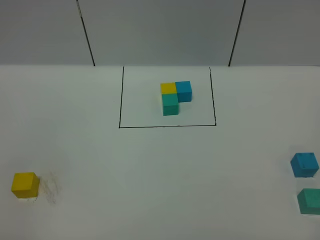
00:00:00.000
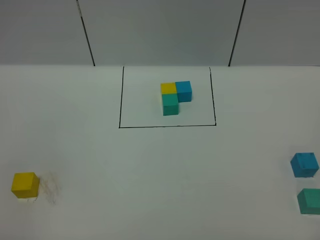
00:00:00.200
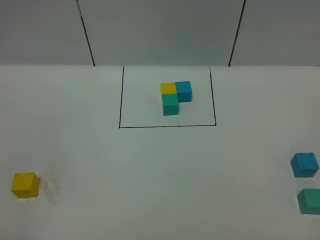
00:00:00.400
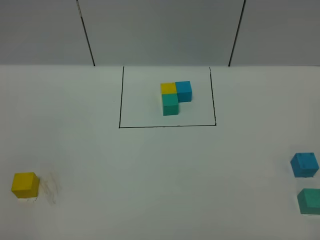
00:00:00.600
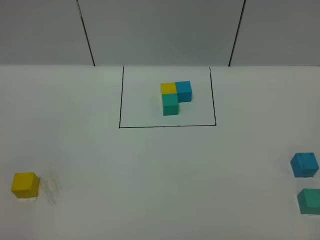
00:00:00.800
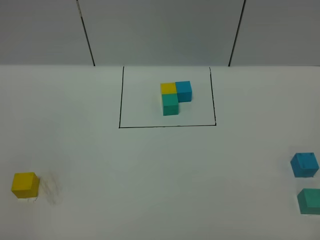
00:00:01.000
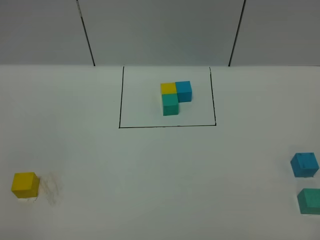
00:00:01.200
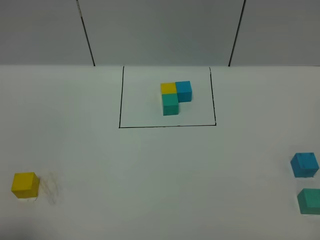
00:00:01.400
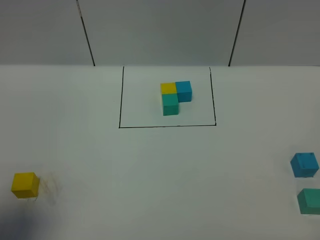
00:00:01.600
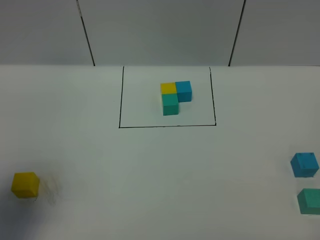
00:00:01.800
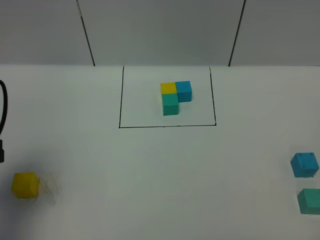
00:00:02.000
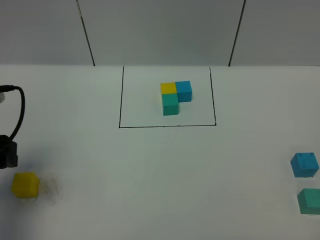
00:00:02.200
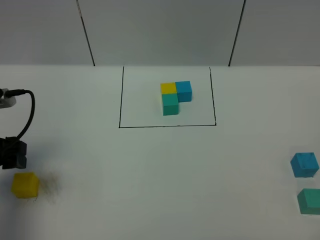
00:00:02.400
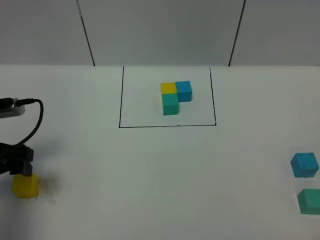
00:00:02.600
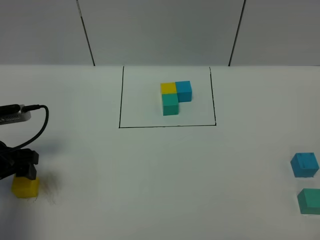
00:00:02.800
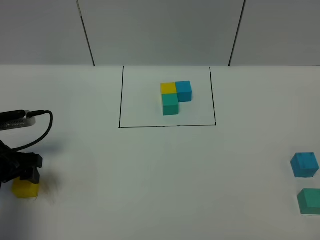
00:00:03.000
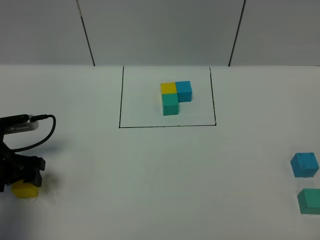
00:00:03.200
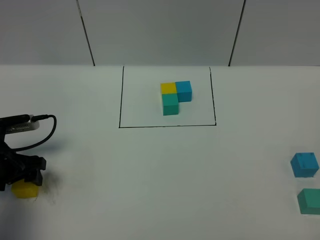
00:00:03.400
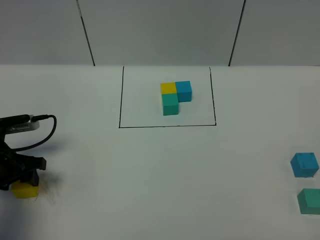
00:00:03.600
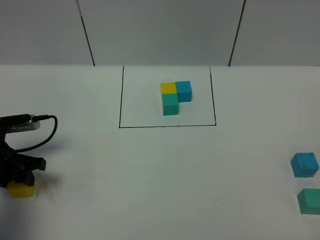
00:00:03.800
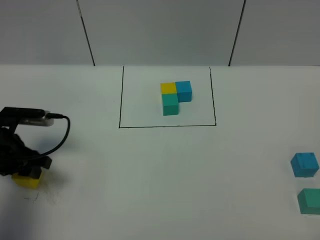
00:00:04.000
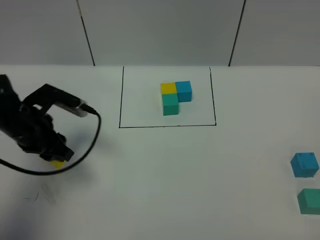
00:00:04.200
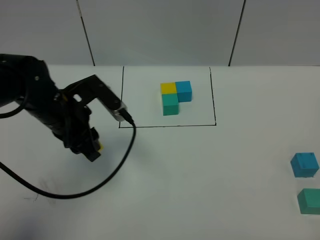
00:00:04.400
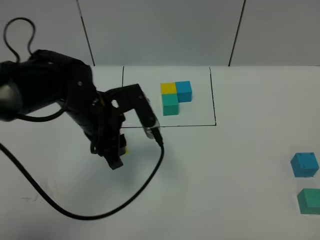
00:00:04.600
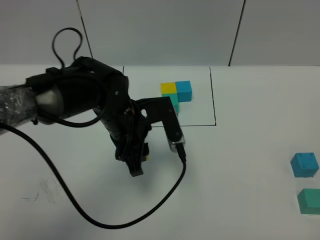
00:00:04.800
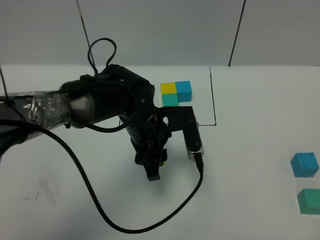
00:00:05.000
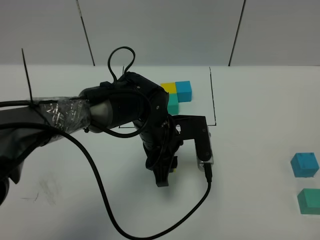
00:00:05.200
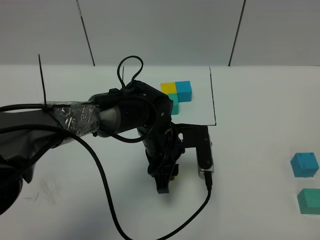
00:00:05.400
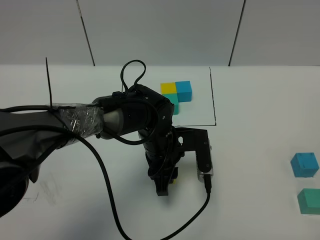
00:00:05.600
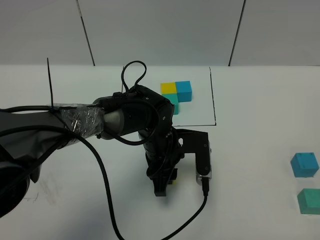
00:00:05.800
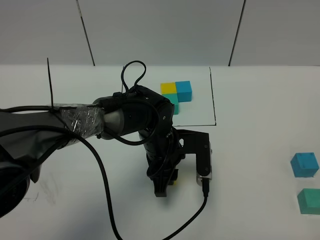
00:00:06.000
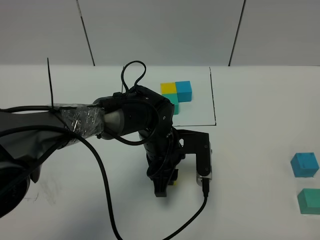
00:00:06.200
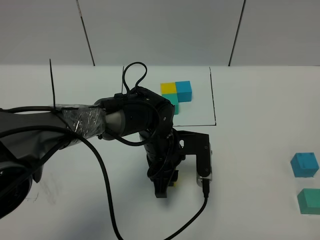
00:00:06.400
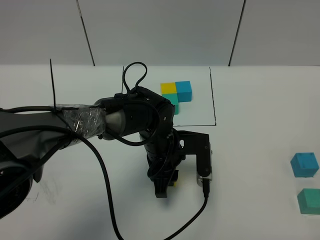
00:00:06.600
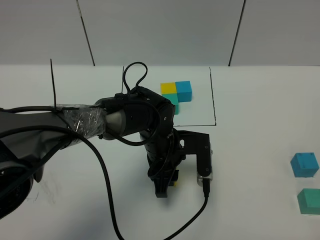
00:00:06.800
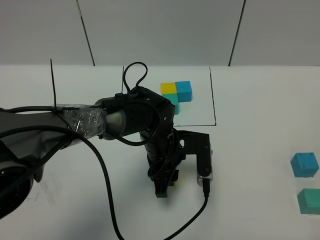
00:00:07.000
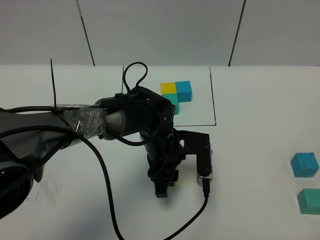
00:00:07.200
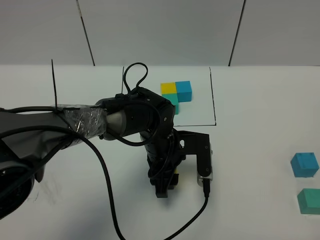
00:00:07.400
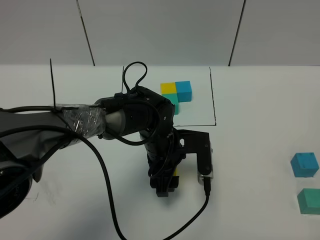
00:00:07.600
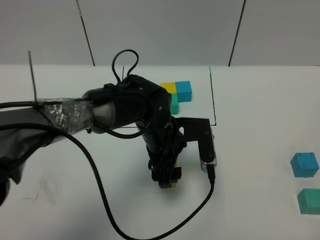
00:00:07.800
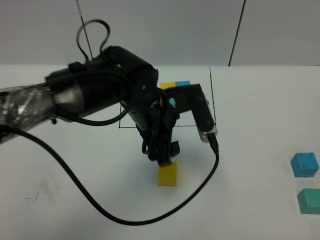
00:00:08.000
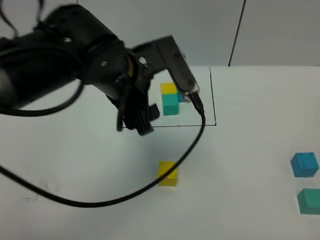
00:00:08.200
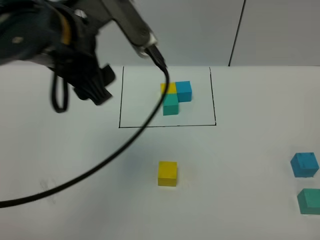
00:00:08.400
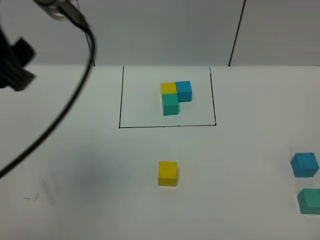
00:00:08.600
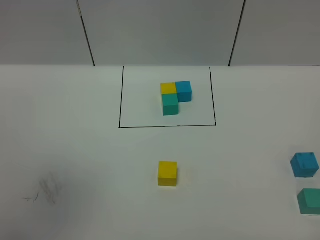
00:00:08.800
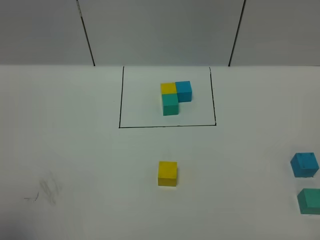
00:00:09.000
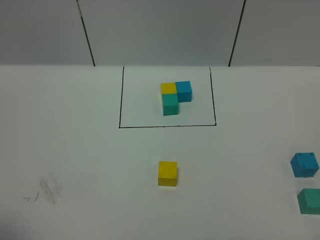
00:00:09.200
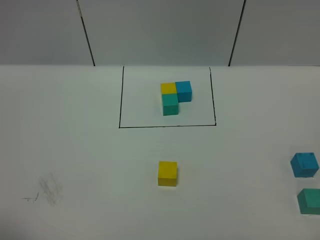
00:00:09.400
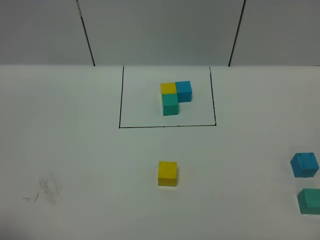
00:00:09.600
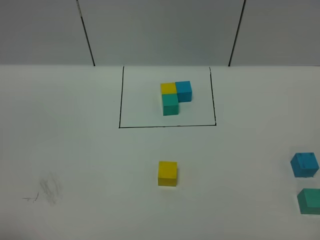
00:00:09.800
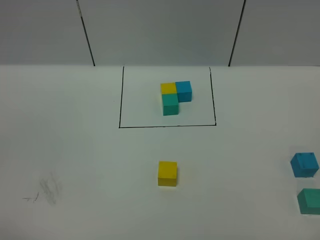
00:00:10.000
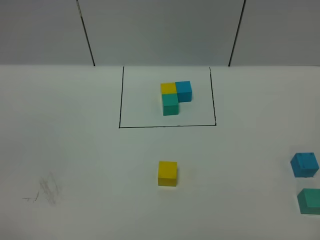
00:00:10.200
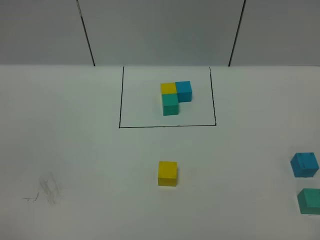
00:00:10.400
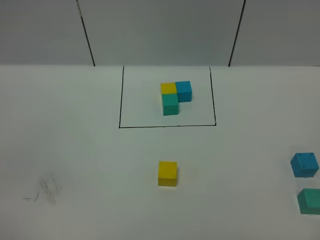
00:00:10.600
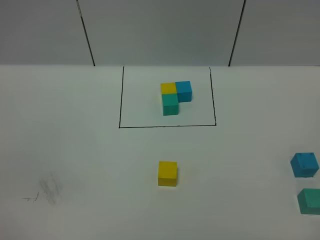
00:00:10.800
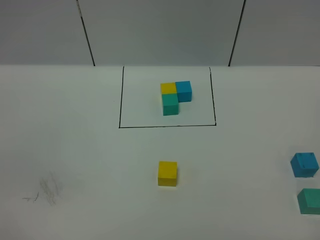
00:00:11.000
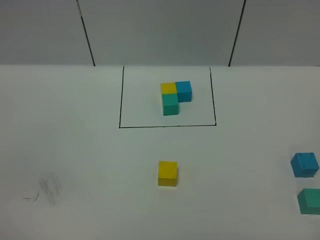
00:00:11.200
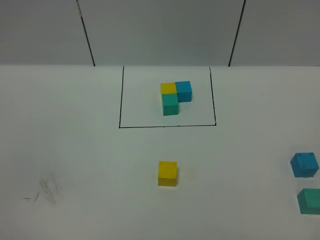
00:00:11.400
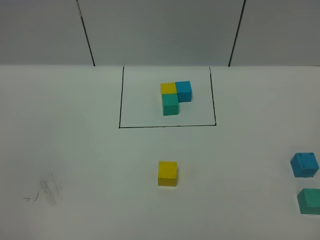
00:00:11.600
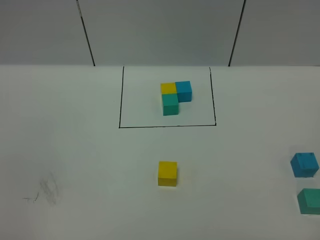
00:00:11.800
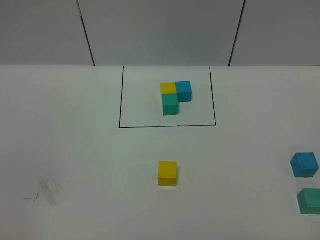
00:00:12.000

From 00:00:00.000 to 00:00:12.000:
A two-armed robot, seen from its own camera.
Task of the whole recording: According to the building block template in front, assemble the scattered blocks together.
Step, from 00:00:01.800 to 00:00:07.600: Put the yellow cube in the center of the table.
From 00:00:00.000 to 00:00:01.600: The left gripper goes about 15 cm forward and upward.
From 00:00:01.600 to 00:00:03.000: The left gripper shifts approximately 25 cm downward and forward.
From 00:00:03.000 to 00:00:04.400: The left gripper shifts approximately 15 cm to the right and upward, and closes its fingers.
From 00:00:04.400 to 00:00:06.000: The left gripper shifts roughly 20 cm to the right and downward.
From 00:00:06.000 to 00:00:07.600: The left gripper opens up.
From 00:00:07.600 to 00:00:09.000: The left gripper moves upward, to the left and backward, roughly 60 cm.
From 00:00:09.000 to 00:00:10.400: The left gripper is displaced downward by approximately 20 cm.

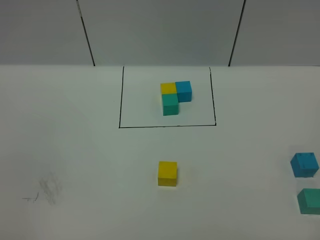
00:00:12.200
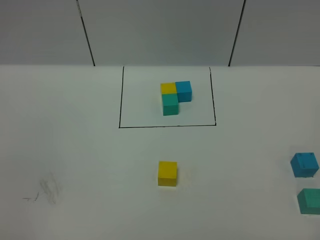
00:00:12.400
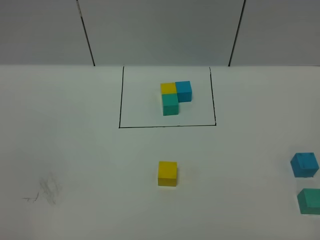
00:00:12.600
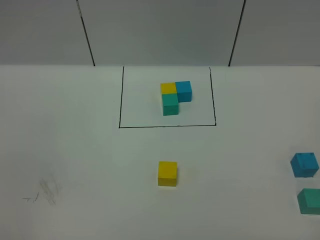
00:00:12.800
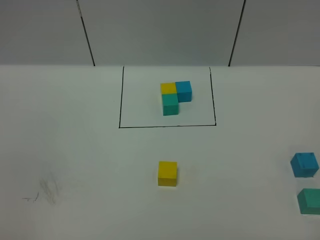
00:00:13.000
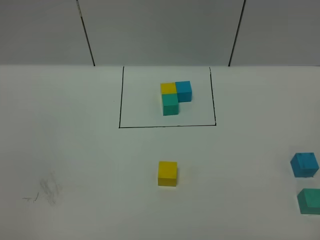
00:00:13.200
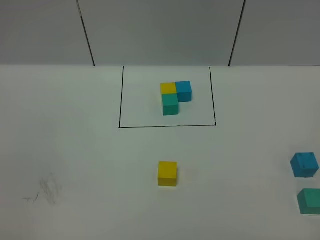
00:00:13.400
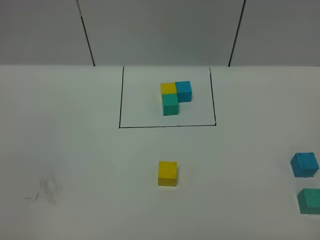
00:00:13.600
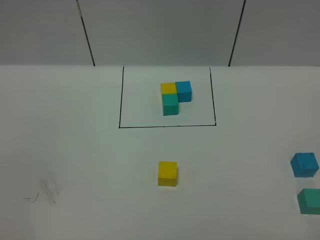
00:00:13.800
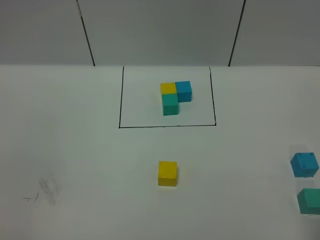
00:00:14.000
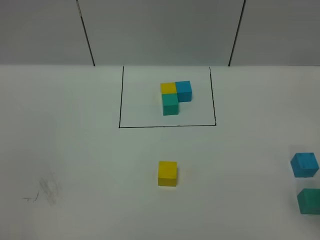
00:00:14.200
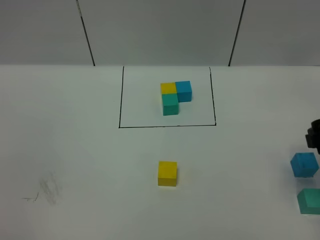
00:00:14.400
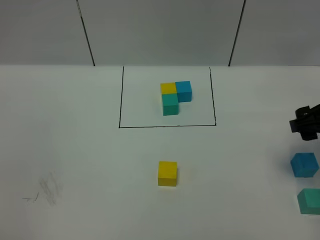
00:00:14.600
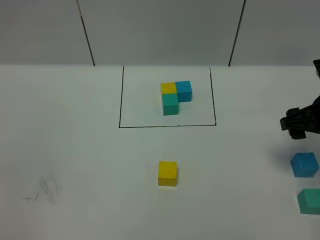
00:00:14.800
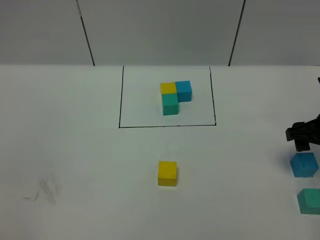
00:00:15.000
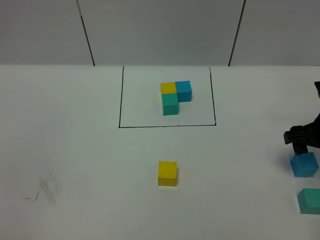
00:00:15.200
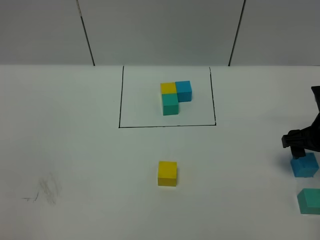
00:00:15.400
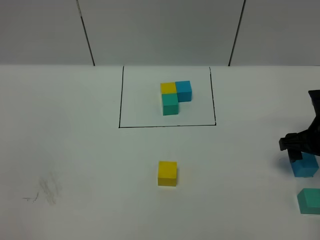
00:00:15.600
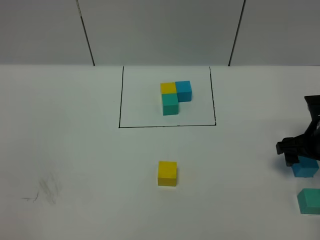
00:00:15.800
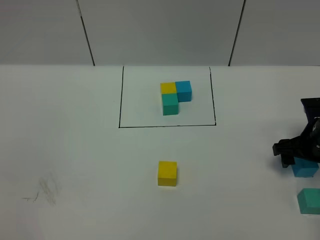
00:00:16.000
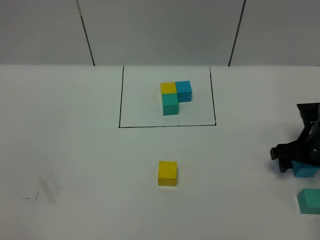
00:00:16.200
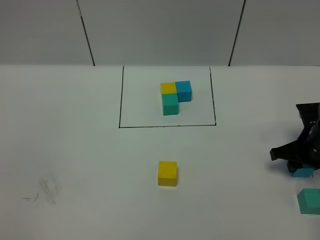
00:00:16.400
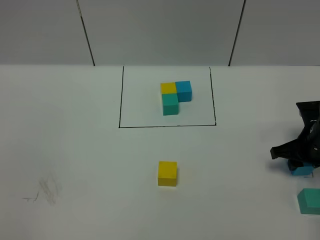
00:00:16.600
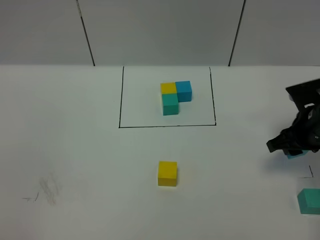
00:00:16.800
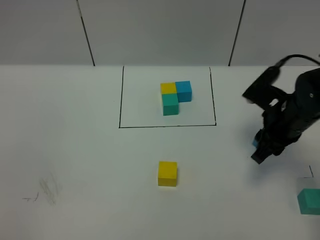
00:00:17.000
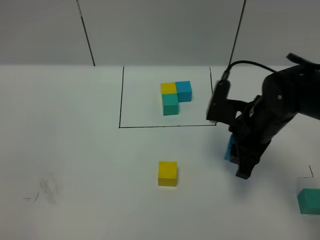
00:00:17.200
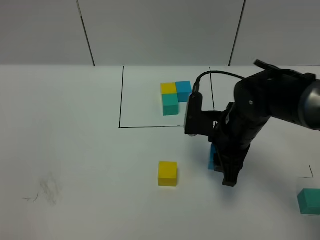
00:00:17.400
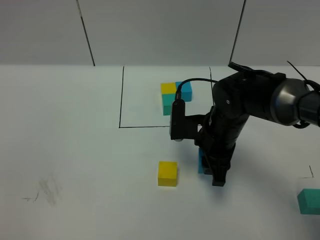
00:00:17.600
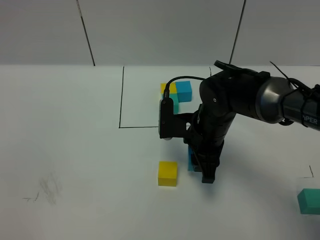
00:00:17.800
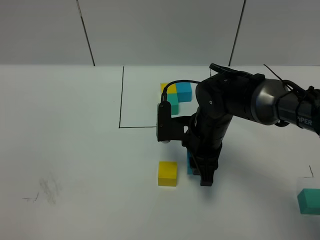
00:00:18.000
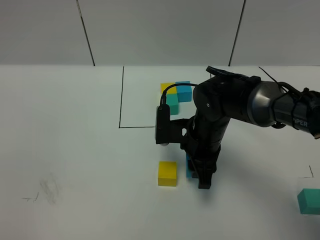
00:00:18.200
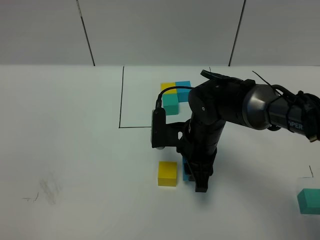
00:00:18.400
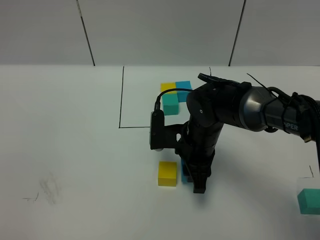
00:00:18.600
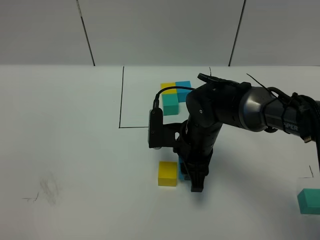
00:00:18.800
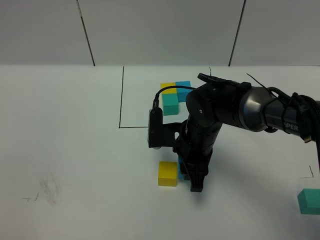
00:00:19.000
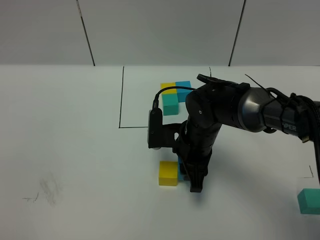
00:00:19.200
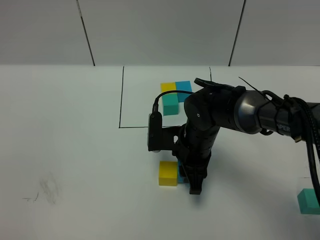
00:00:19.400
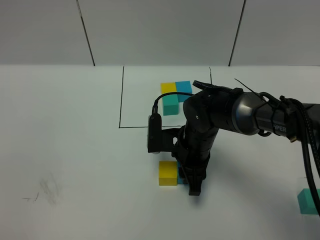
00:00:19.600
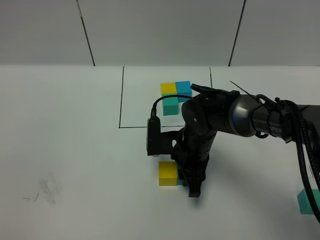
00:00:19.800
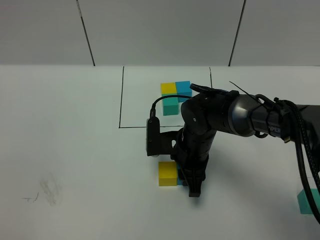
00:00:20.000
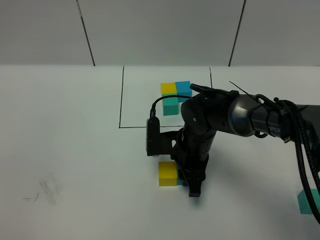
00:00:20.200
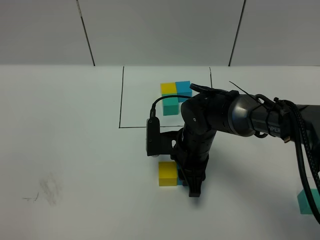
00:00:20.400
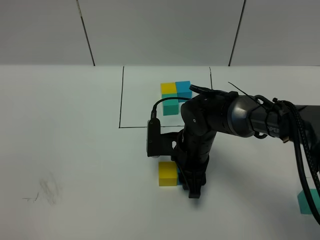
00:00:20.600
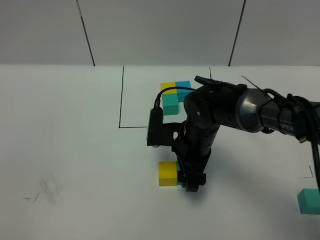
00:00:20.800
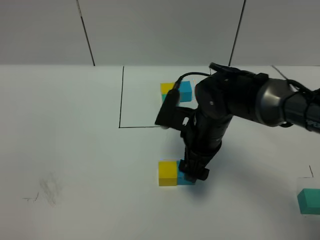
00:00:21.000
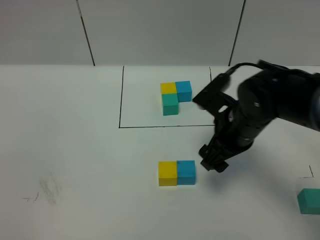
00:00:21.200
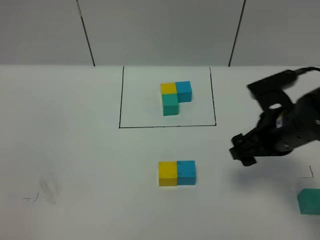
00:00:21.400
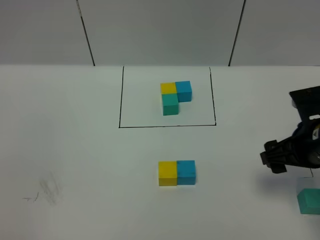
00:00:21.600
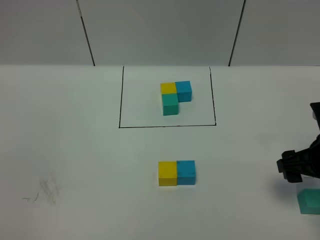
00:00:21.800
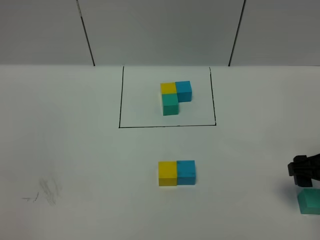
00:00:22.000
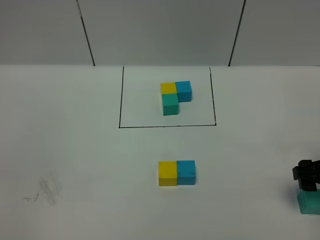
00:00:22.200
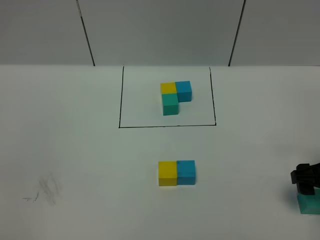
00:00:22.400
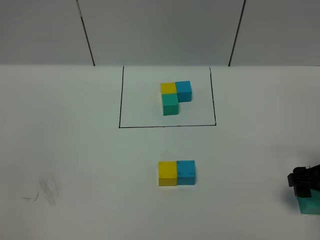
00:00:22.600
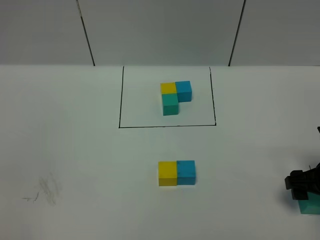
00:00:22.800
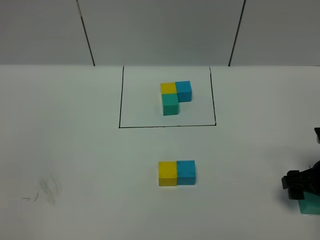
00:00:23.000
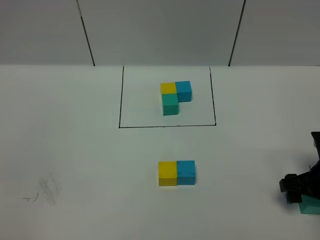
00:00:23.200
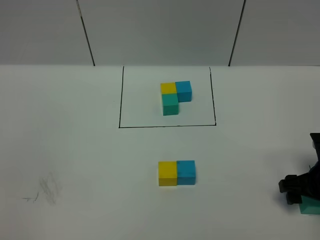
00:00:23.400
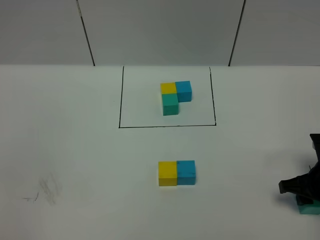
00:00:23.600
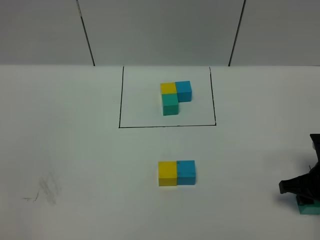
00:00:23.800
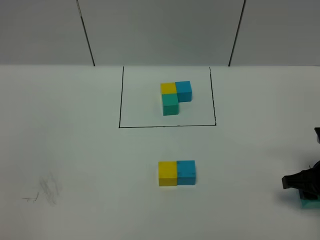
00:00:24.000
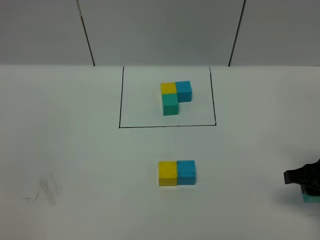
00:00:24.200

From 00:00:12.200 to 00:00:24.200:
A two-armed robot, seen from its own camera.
Task of the whole recording: According to the building block template in front, assemble the scattered blocks together.
Step, from 00:00:12.200 to 00:00:20.800: Put the blue cube on the right of the yellow cube.
From 00:00:13.800 to 00:00:15.200: The right gripper goes some 30 cm forward and downward.
From 00:00:15.200 to 00:00:16.600: The right gripper is displaced downward by about 5 cm, and closes up.
From 00:00:16.600 to 00:00:18.200: The right gripper travels to the left by roughly 20 cm.
From 00:00:18.200 to 00:00:19.800: The grippers stay close to where they were, moving slightly.
From 00:00:19.800 to 00:00:21.200: The right gripper moves upward and to the right, approximately 10 cm, and opens.
From 00:00:21.200 to 00:00:22.600: The right gripper moves to the right, roughly 15 cm.
From 00:00:22.600 to 00:00:24.200: The right gripper closes its fingers.
